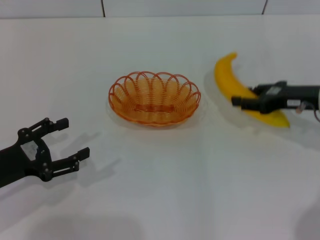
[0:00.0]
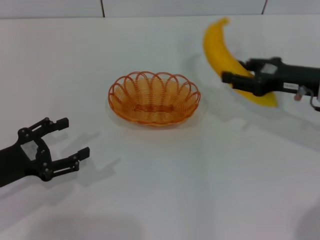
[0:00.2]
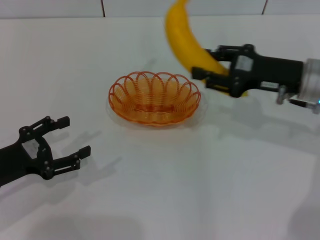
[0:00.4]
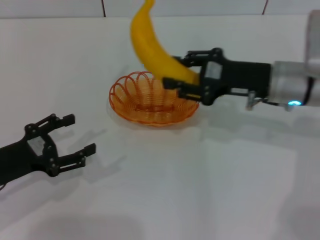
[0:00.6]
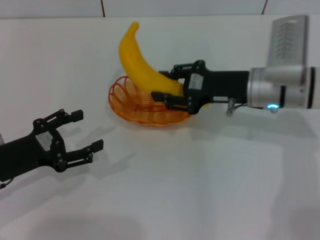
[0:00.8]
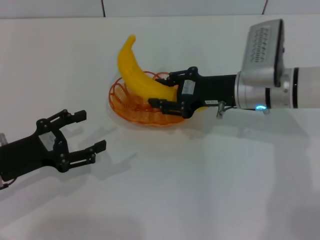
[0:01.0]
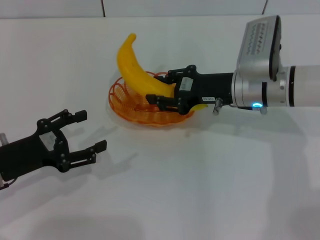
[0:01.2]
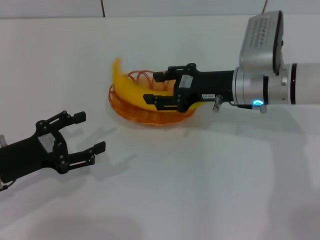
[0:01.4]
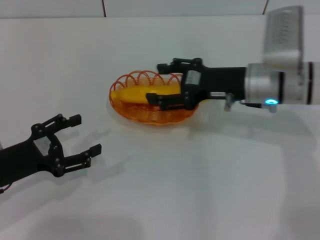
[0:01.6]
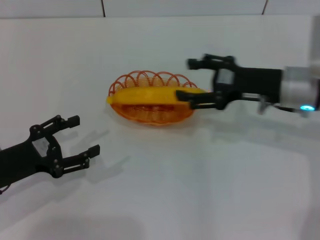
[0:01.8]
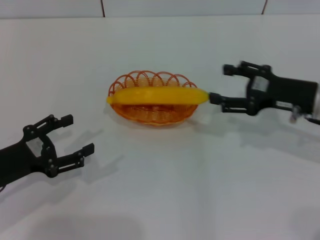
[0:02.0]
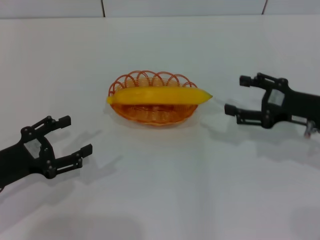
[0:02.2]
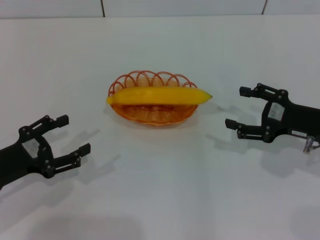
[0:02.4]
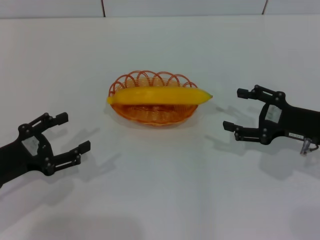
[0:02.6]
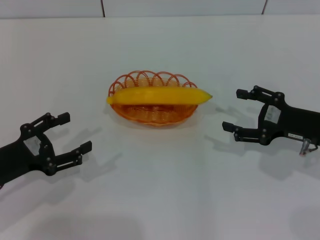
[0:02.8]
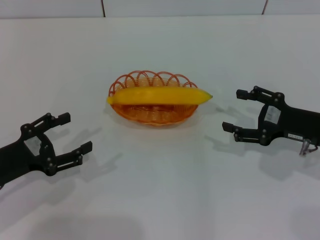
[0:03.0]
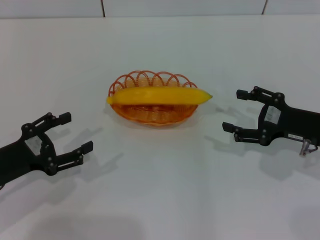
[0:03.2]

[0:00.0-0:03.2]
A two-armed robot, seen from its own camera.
Step, 0:00.2 to 0:01.8: Place the banana into the basket with the right gripper.
0:00.0 to 0:01.6: The right gripper is displaced to the left by about 10 cm, and opens up.
0:01.6 to 0:03.2: The right gripper travels to the right and backward by roughly 15 cm, and opens.

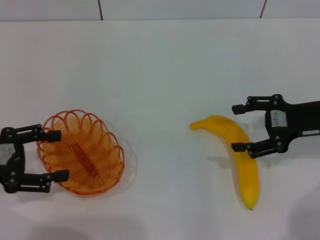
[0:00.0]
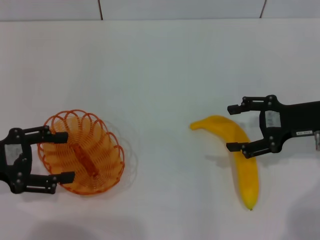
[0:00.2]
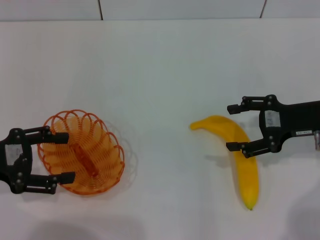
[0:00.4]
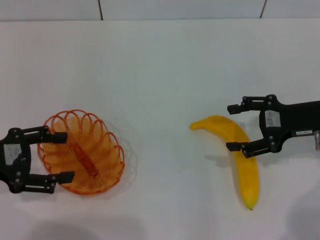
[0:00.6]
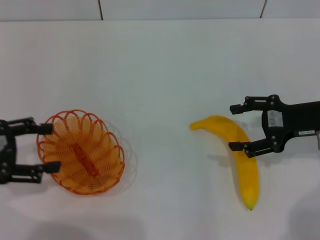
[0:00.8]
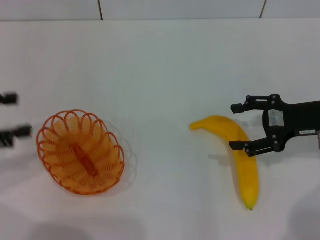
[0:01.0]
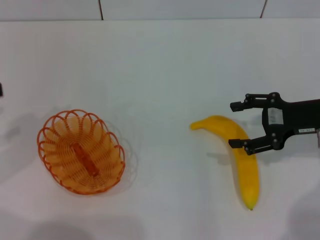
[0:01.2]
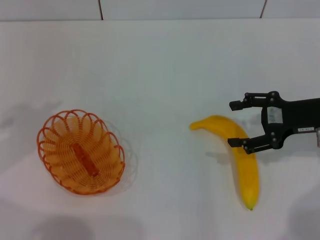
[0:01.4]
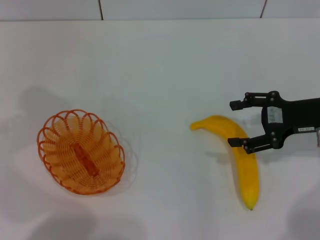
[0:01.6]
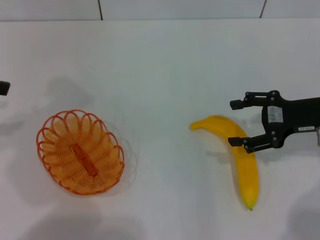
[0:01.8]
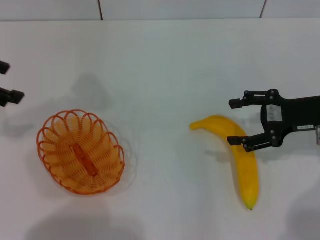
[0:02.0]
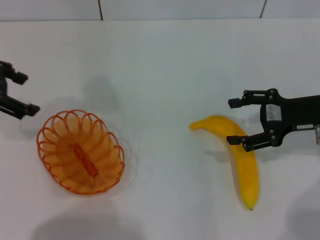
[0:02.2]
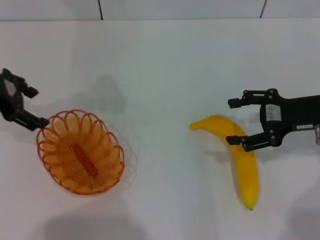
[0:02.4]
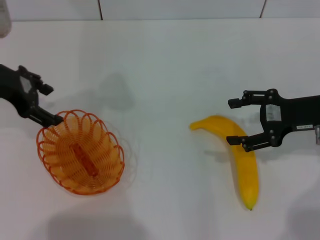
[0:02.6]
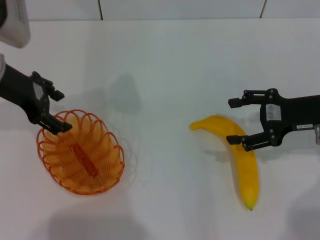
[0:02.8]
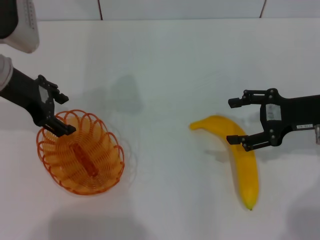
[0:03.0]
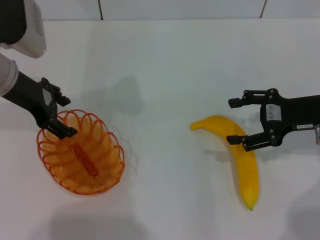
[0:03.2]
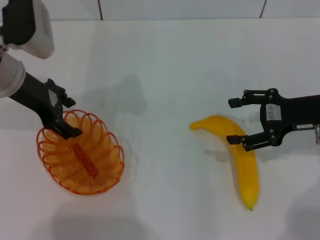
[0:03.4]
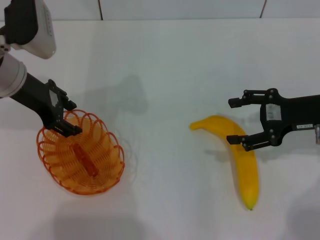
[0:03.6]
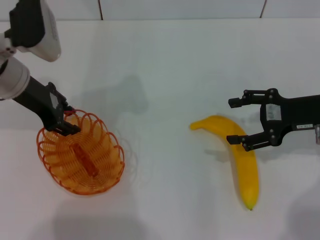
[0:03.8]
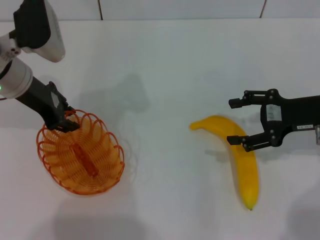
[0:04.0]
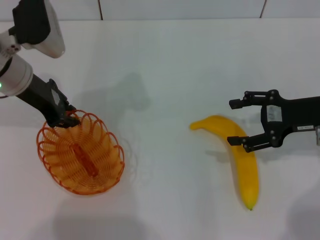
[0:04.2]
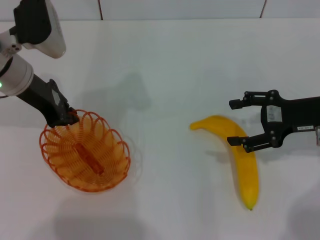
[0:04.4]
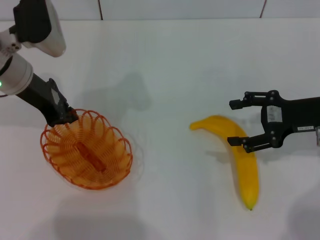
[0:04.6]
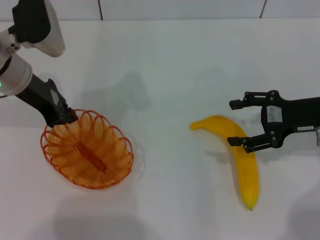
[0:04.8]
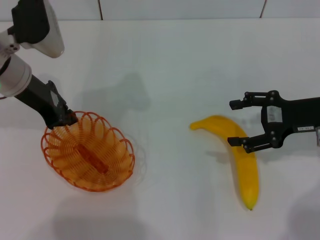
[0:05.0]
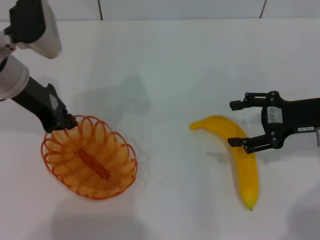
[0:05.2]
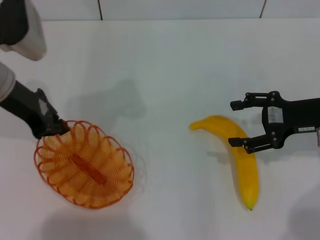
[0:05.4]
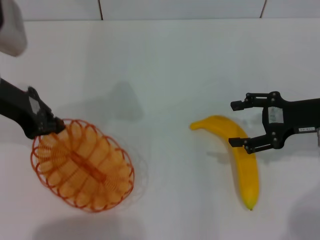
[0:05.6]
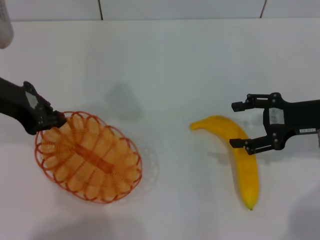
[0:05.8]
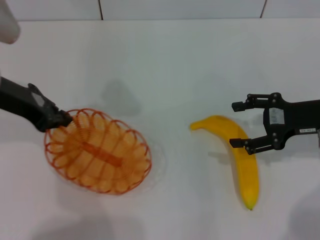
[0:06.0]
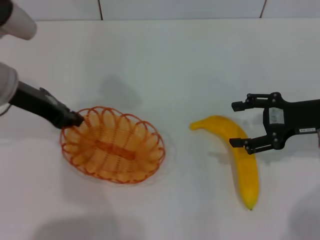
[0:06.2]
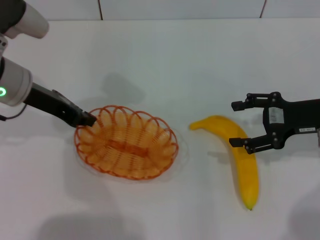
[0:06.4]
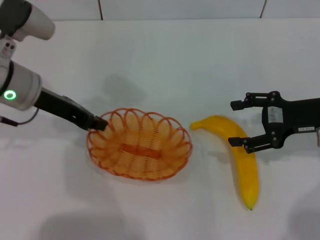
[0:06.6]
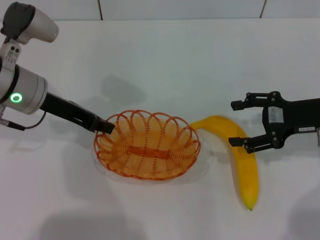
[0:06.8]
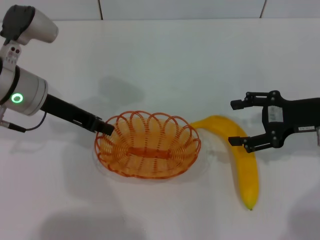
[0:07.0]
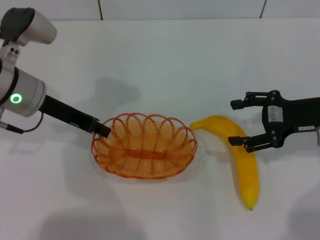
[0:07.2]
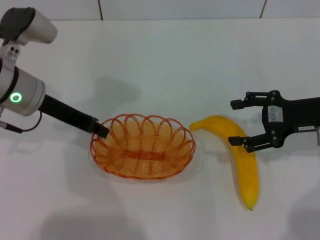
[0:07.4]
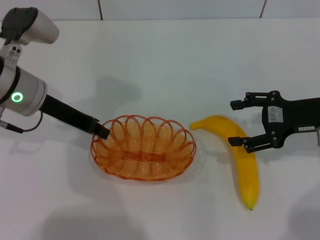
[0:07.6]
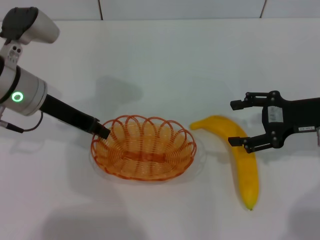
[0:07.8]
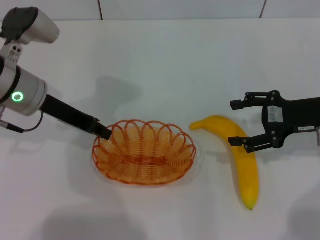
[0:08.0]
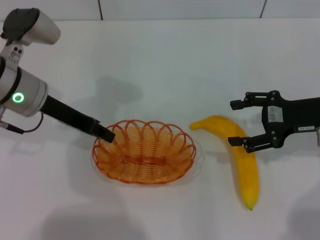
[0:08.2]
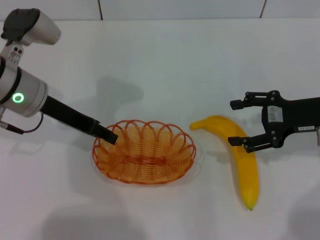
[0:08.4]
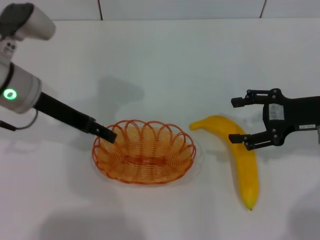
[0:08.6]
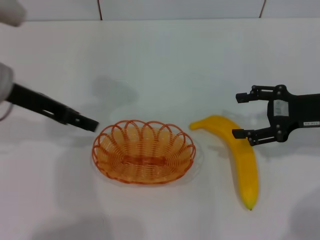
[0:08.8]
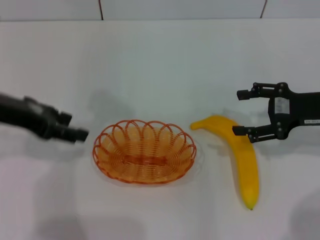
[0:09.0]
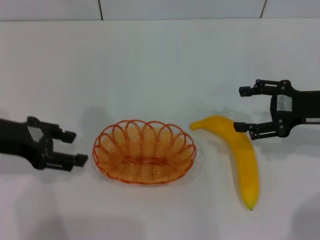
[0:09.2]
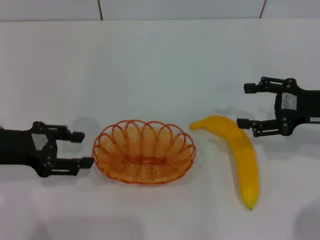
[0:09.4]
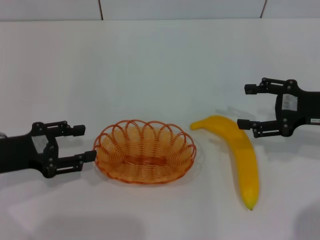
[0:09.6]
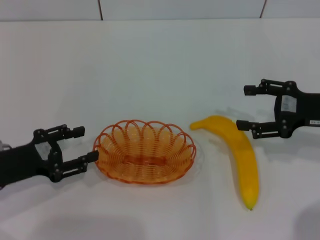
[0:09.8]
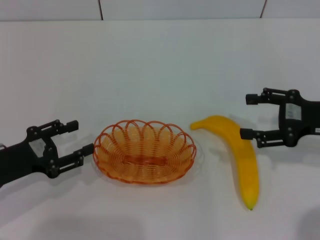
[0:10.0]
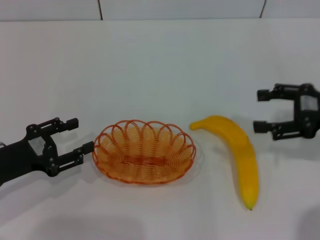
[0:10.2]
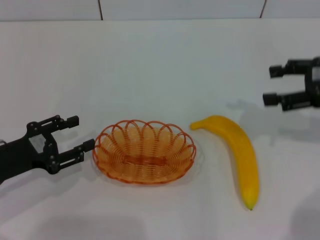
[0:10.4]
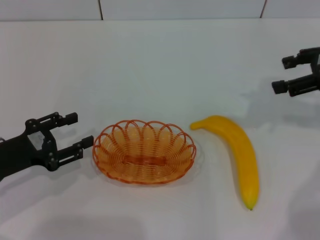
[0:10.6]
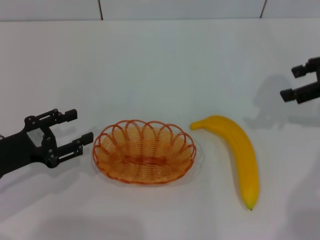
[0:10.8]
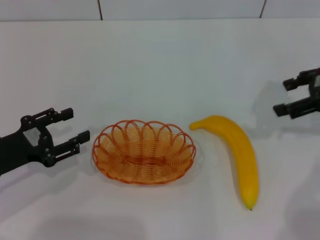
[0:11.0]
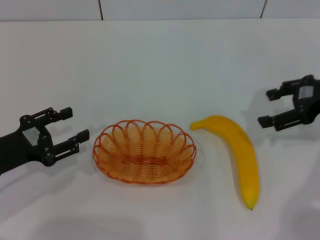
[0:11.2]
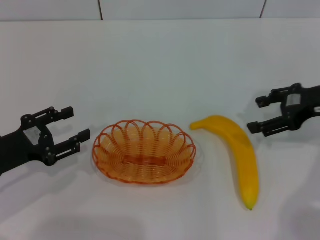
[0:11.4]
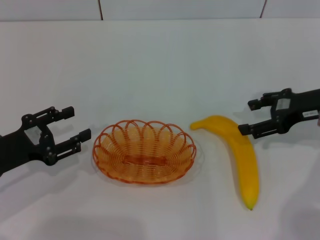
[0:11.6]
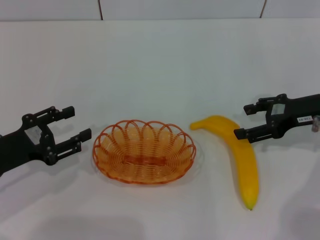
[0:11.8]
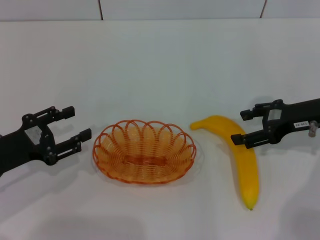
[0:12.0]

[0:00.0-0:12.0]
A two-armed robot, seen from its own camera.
Step, 0:00.0 to 0:05.6: Pick up the basket with the left gripper.
Step, 0:05.8 to 0:08.4: Place the basket in the center of view with the left gripper.
0:00.0 to 0:01.6: The left gripper goes roughly 15 cm upward, forward and to the left.
0:01.6 to 0:03.0: The left gripper travels to the right and forward by approximately 15 cm.
0:03.0 to 0:04.4: The left gripper closes up.
0:04.4 to 0:06.0: The left gripper changes place by approximately 5 cm.
0:06.0 to 0:07.6: The left gripper shifts by roughly 5 cm.
0:07.6 to 0:09.0: The left gripper travels backward by roughly 5 cm, and opens its fingers.
0:09.0 to 0:10.4: The left gripper heads downward and backward, covering approximately 15 cm; the right gripper moves upward, approximately 5 cm.
0:10.4 to 0:12.0: The right gripper shifts roughly 5 cm downward.

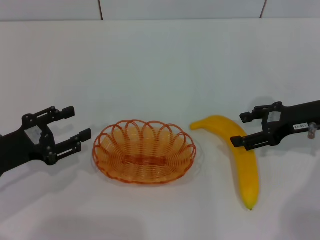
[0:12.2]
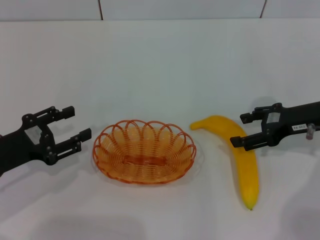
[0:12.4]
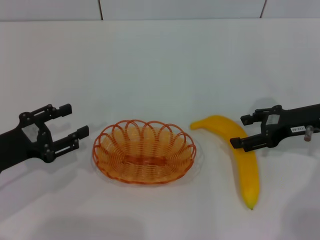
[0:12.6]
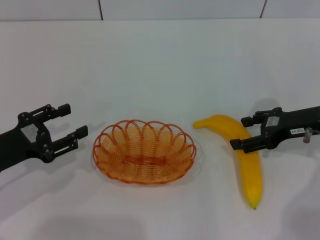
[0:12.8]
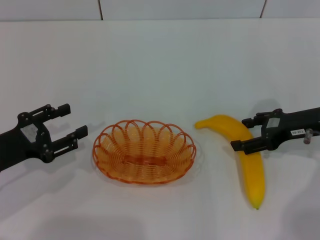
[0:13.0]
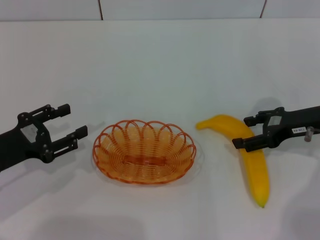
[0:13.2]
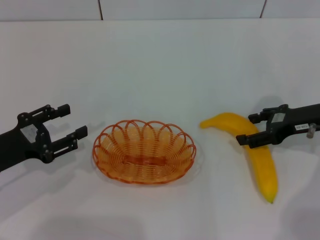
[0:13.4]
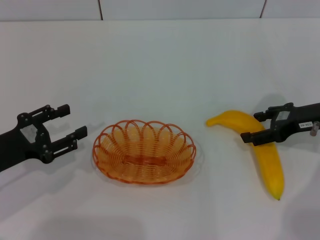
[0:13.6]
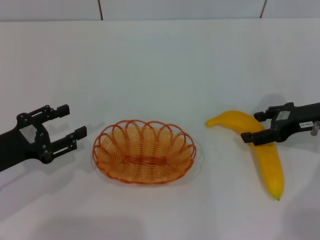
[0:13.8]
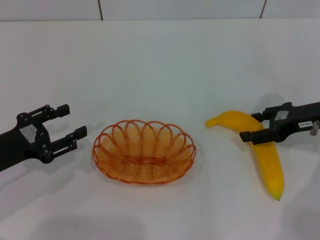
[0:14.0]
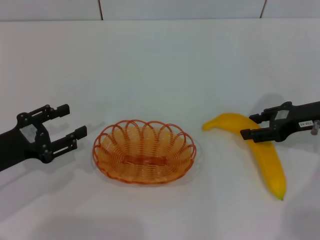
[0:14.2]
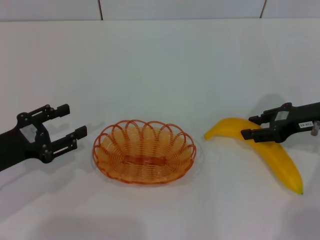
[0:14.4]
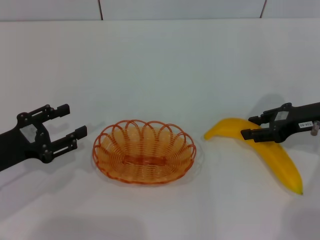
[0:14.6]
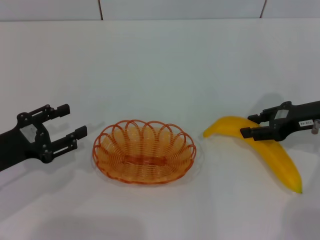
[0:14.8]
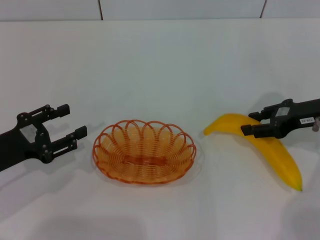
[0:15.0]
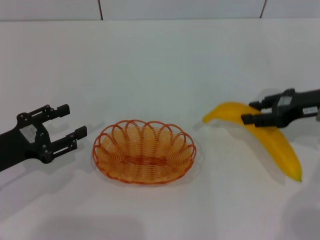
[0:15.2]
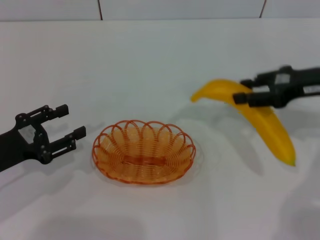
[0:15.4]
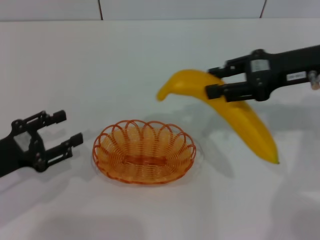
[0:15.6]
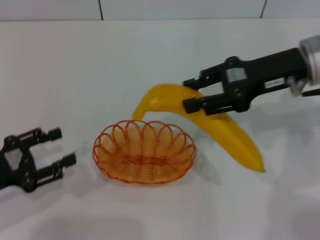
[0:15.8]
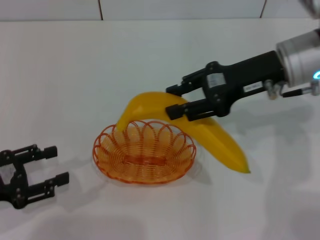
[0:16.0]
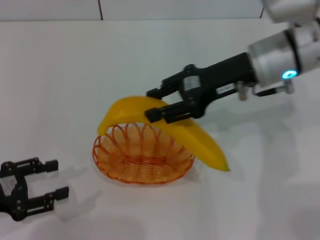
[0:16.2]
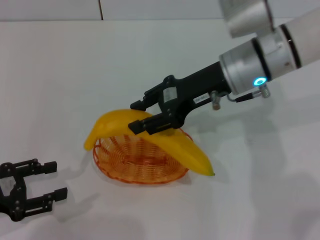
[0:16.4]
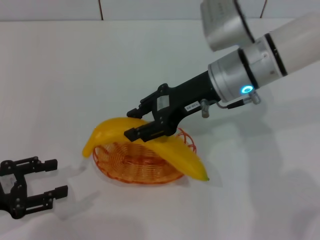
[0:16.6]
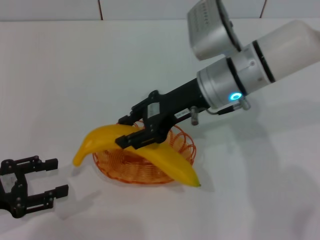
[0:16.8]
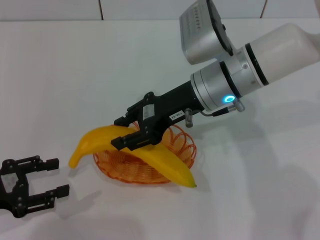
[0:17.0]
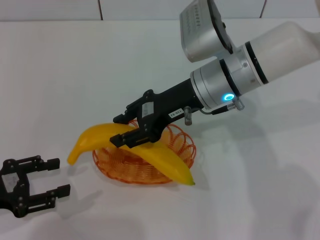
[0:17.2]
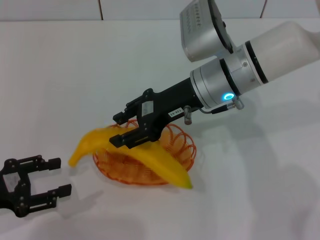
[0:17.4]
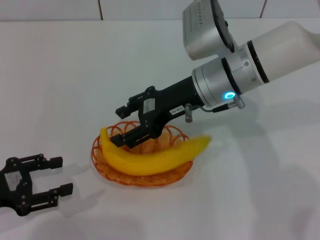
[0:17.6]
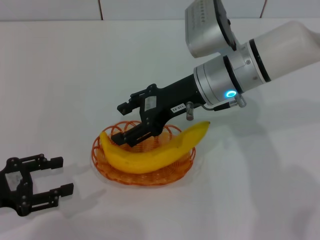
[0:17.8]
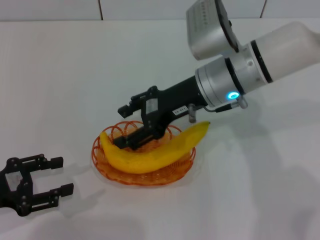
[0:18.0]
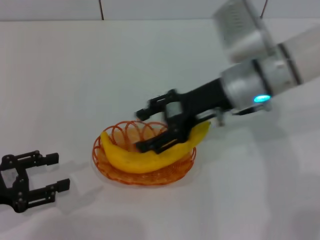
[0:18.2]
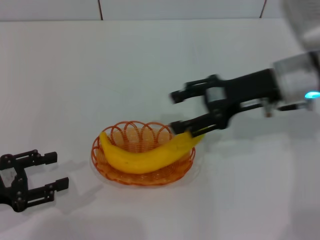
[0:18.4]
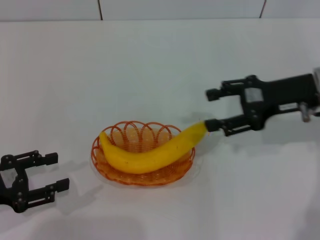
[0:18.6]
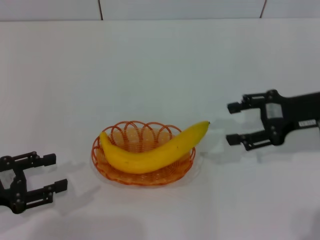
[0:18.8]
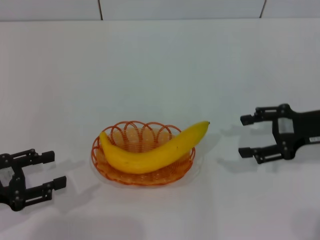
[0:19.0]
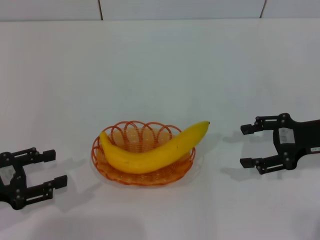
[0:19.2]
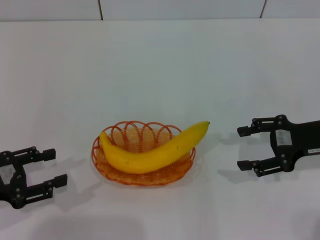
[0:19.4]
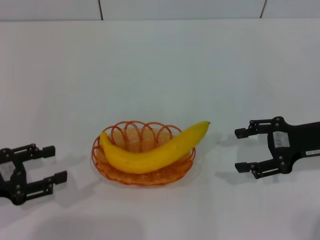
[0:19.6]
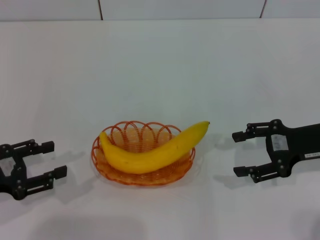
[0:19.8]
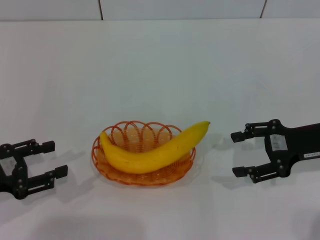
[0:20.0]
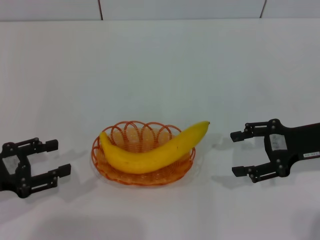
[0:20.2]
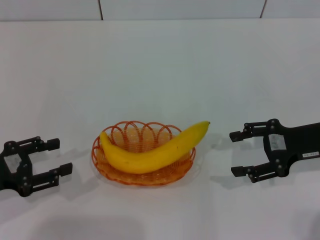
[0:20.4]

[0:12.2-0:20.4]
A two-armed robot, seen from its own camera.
Step, 0:12.2 to 0:15.6: Pick up the banana with the right gripper.
Step, 0:15.8 to 0:17.8: Place the banana into the basket with the right gripper.
0:12.2 to 0:13.8: The grippers stay close to where they were, moving slightly.
0:13.8 to 0:15.4: The right gripper moves upward, about 5 cm, and closes up.
0:15.4 to 0:17.2: The right gripper shifts some 20 cm to the left.
0:17.2 to 0:18.8: The right gripper goes roughly 20 cm to the right, and opens up.
0:18.8 to 0:20.4: There are only small adjustments of the grippers.
